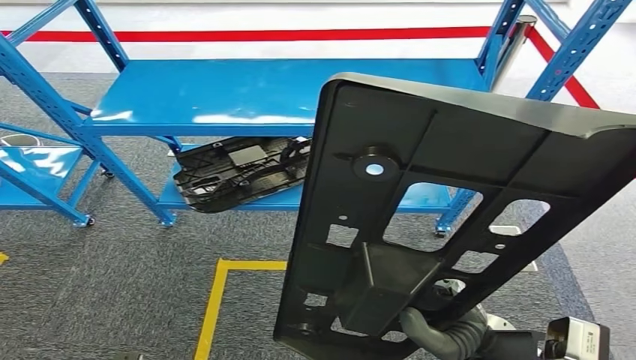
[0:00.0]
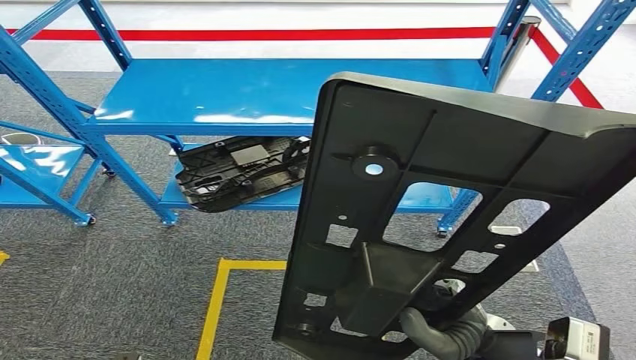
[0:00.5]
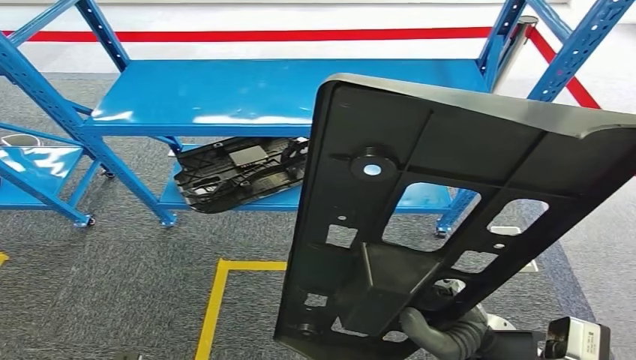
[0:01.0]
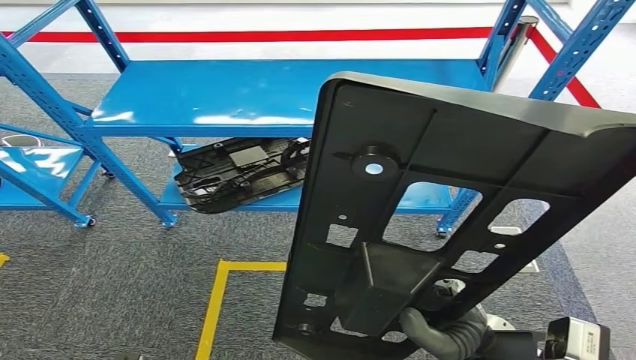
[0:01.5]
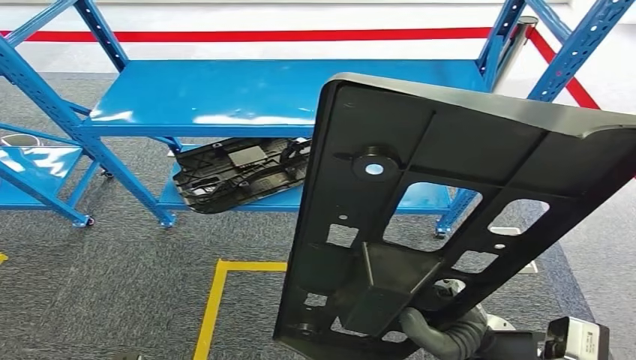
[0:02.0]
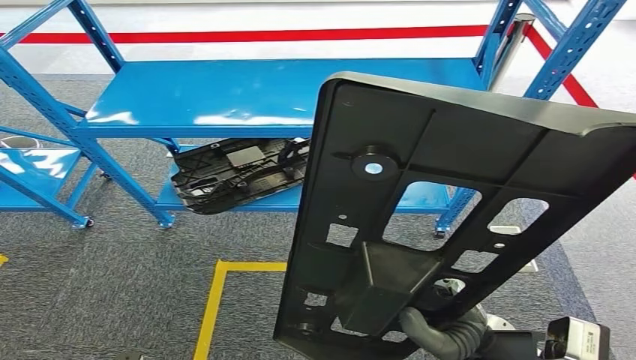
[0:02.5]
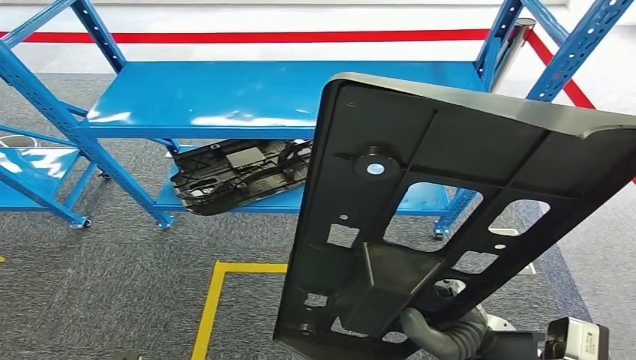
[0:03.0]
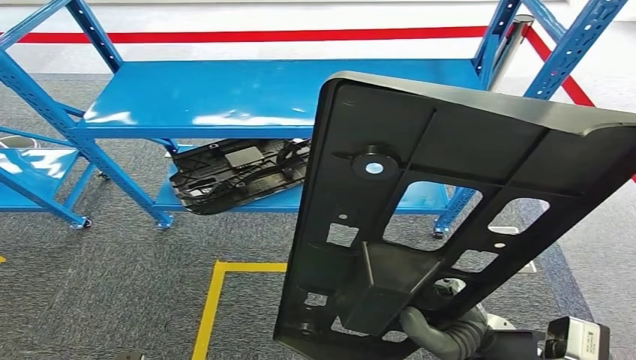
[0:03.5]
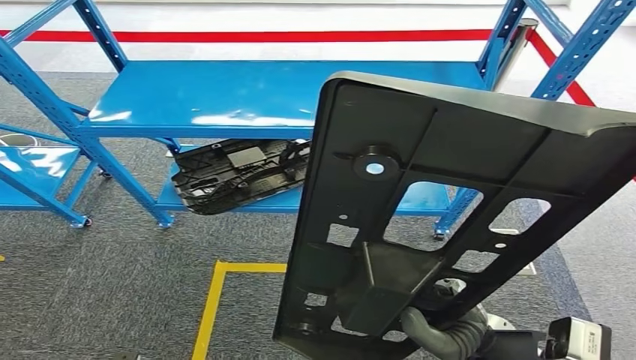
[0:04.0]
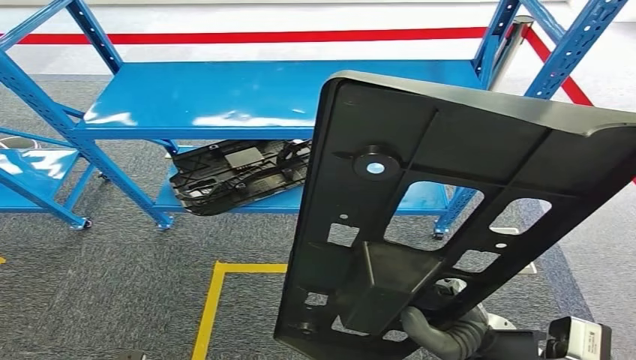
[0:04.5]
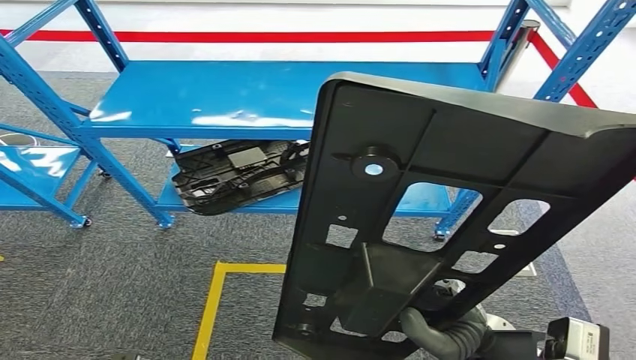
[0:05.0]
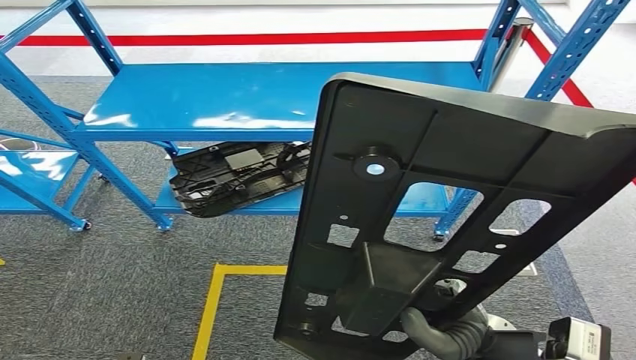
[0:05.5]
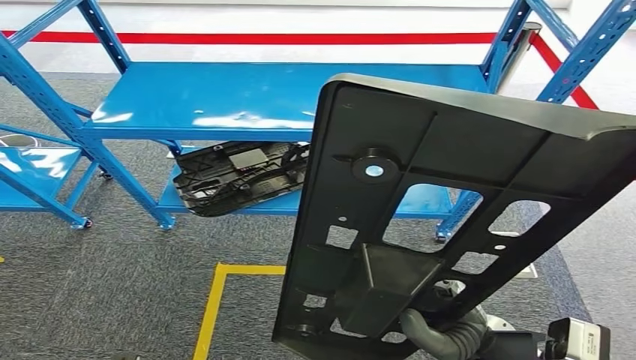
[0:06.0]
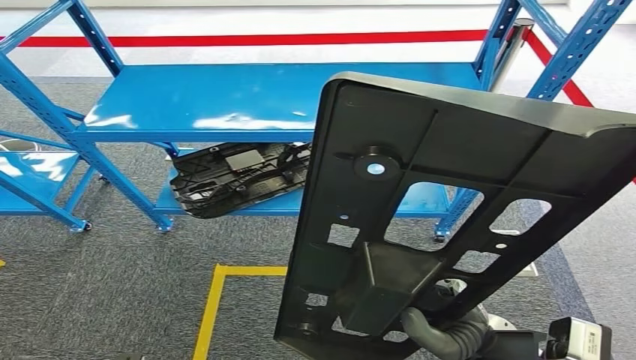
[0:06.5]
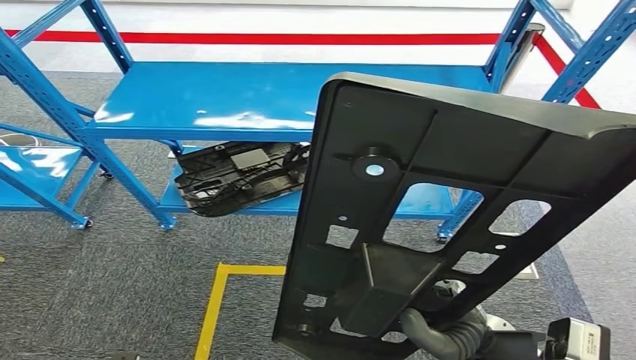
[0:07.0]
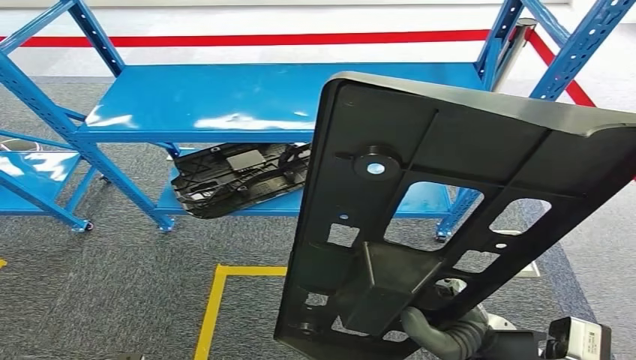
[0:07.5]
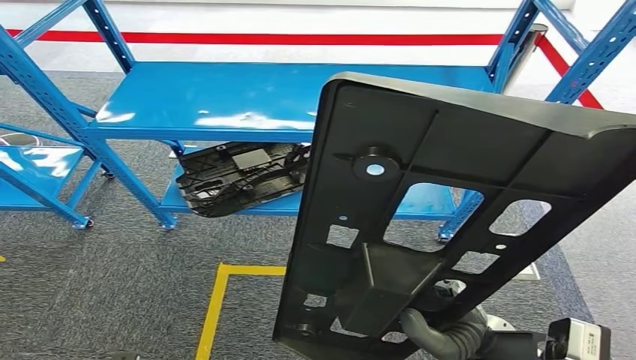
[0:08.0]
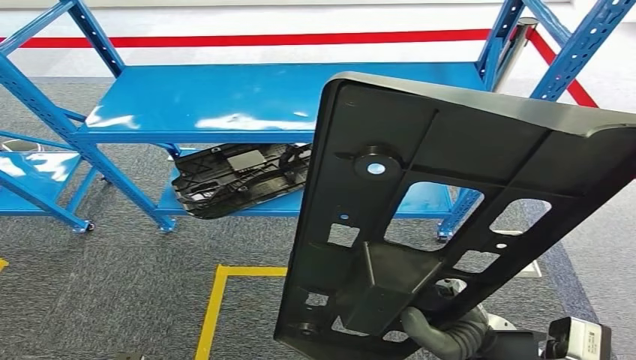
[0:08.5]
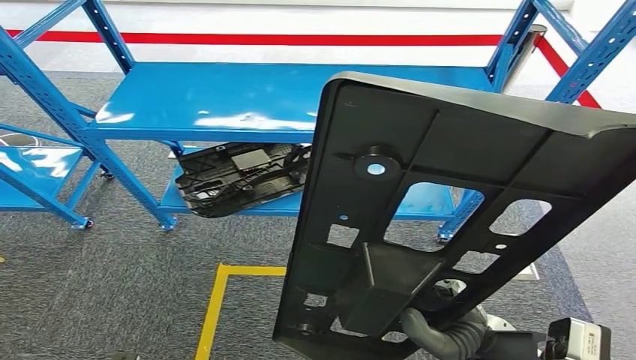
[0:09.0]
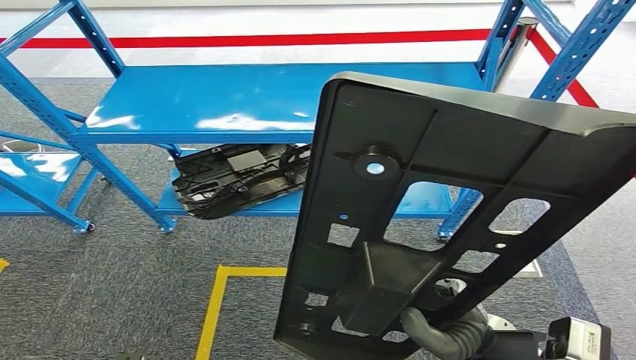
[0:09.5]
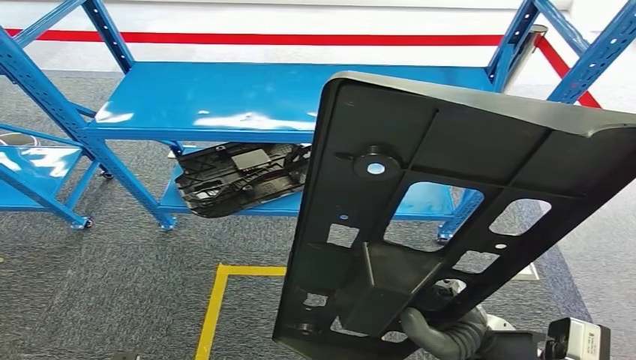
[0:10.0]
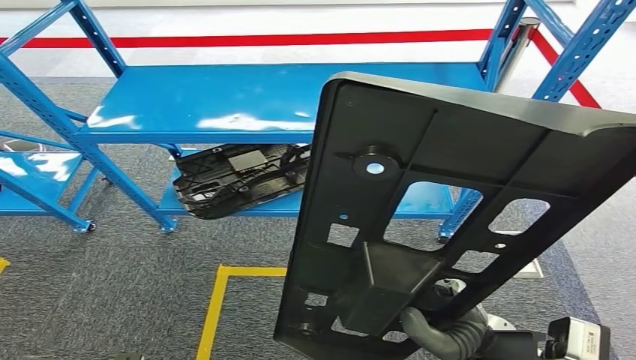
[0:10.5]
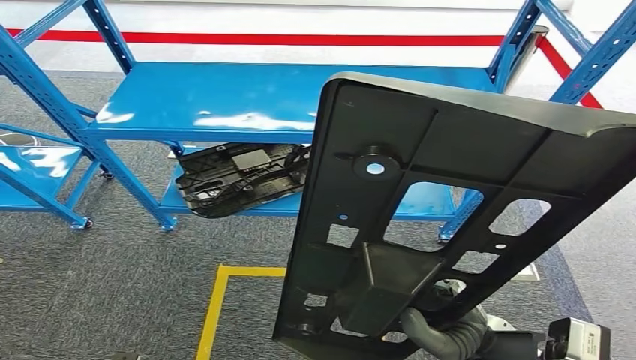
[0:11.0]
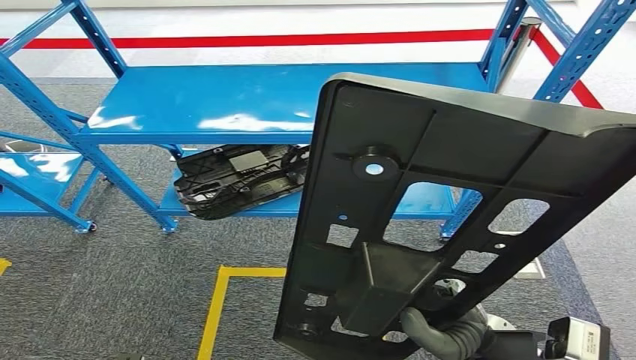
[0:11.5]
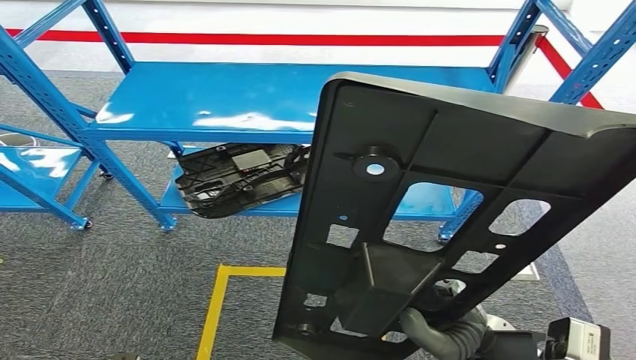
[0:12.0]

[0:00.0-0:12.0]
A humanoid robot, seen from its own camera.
0:00.0 to 0:12.0: Both hands stay about where they are.

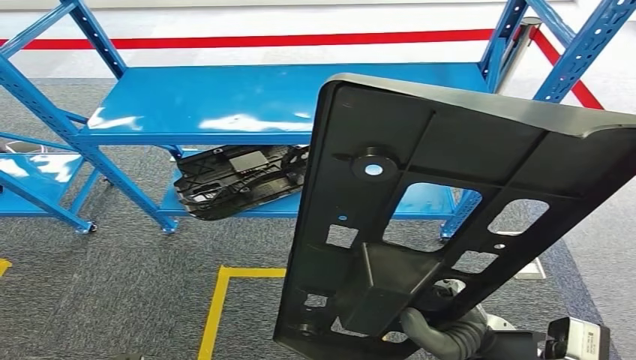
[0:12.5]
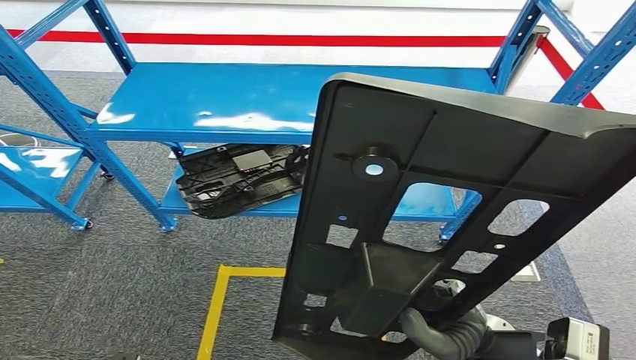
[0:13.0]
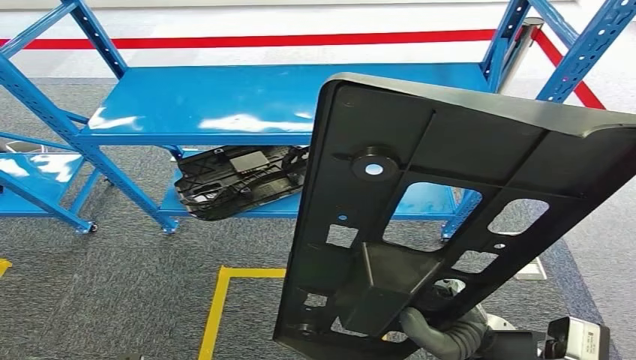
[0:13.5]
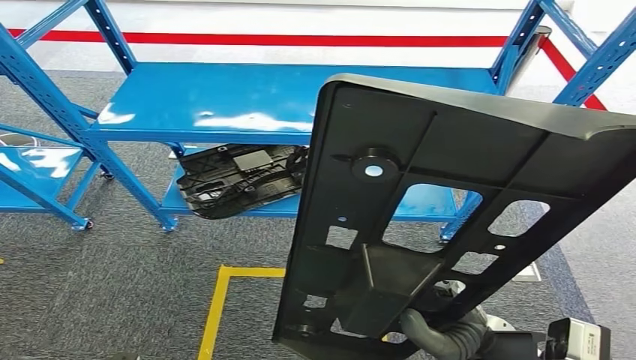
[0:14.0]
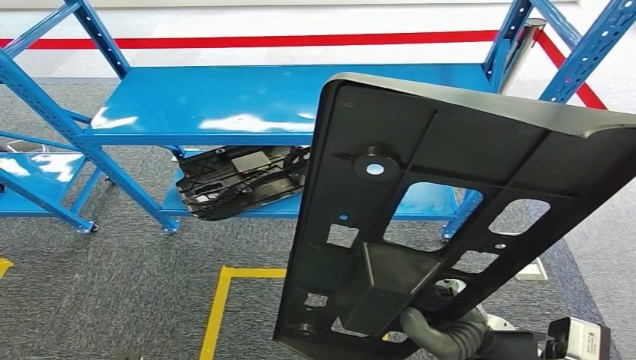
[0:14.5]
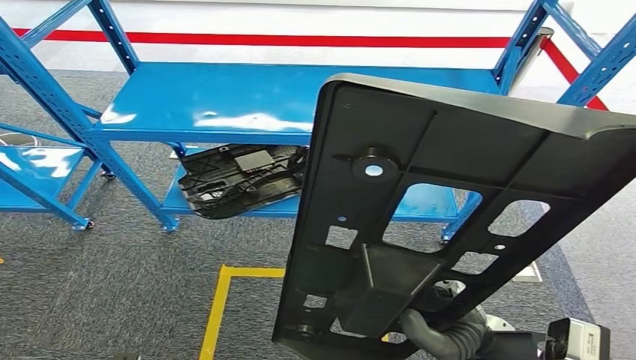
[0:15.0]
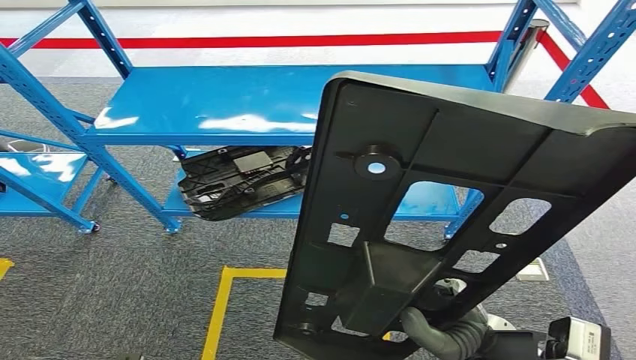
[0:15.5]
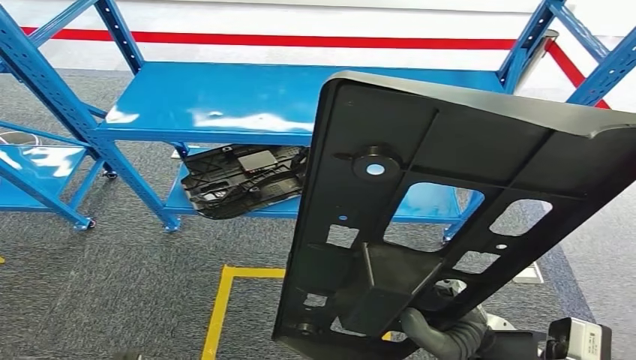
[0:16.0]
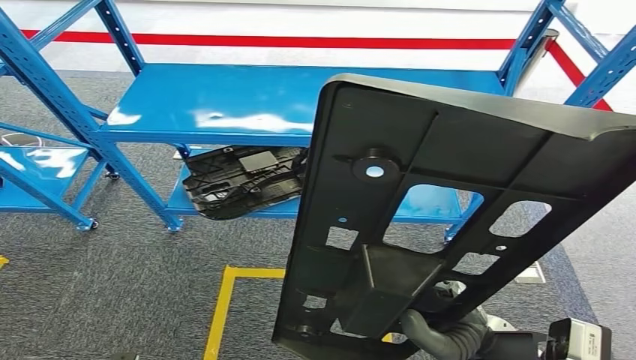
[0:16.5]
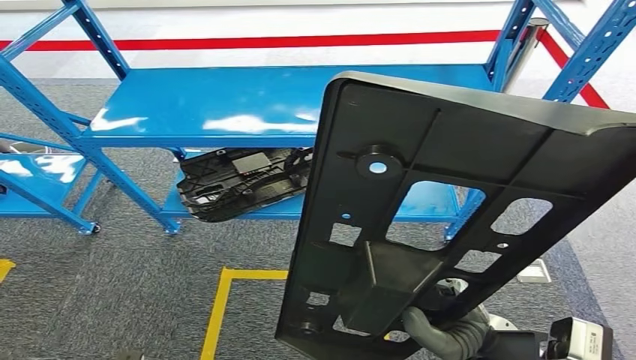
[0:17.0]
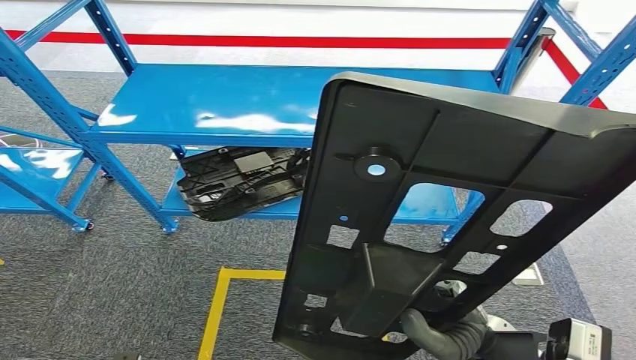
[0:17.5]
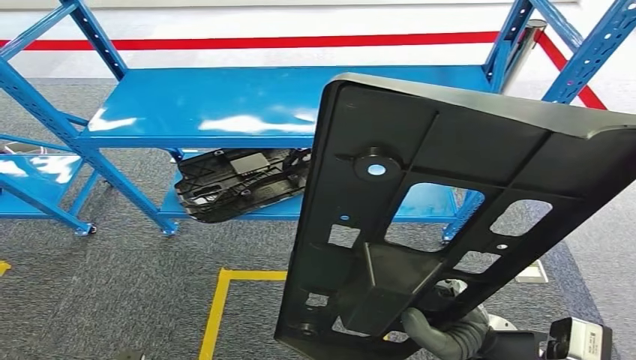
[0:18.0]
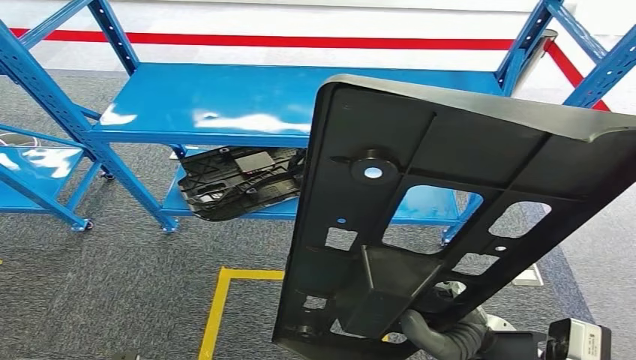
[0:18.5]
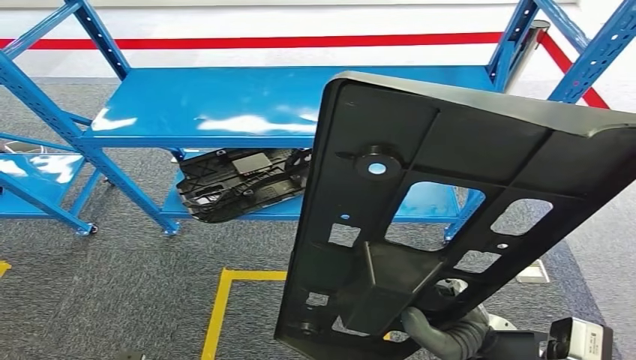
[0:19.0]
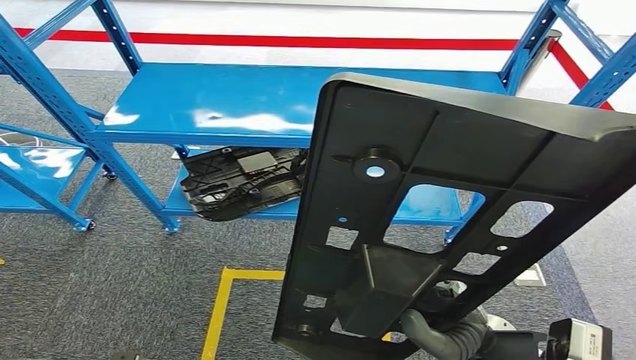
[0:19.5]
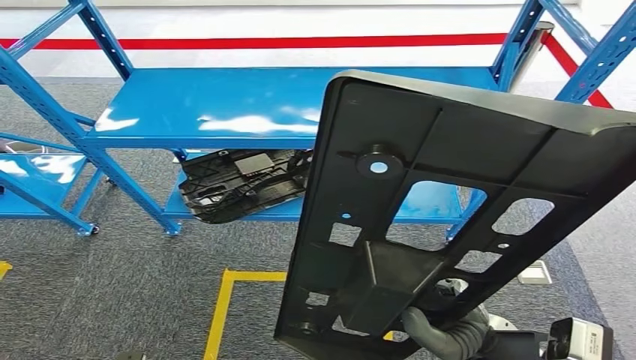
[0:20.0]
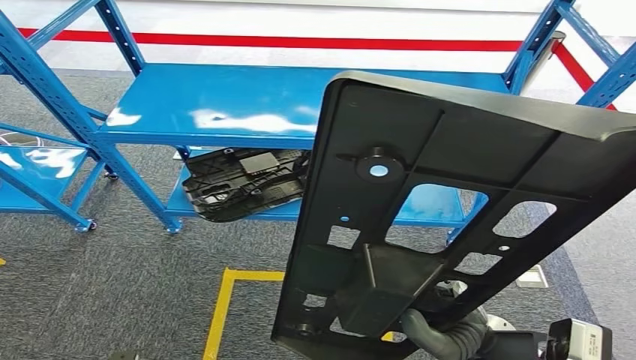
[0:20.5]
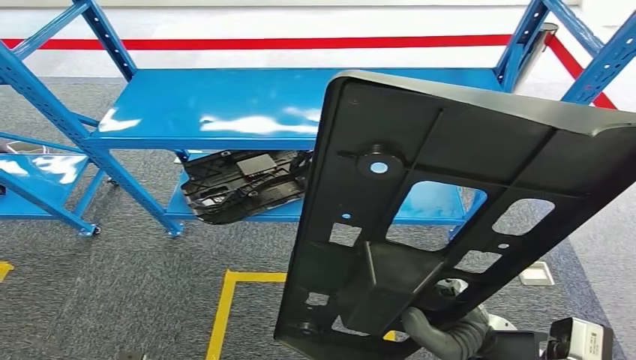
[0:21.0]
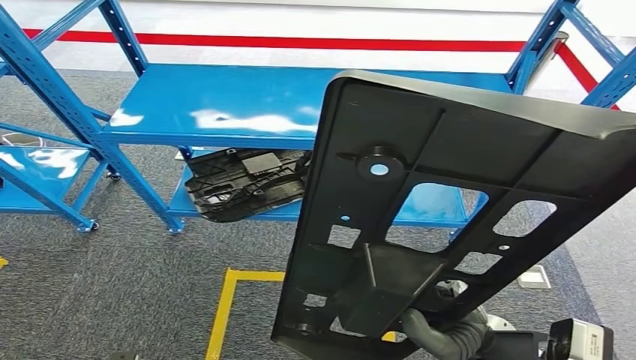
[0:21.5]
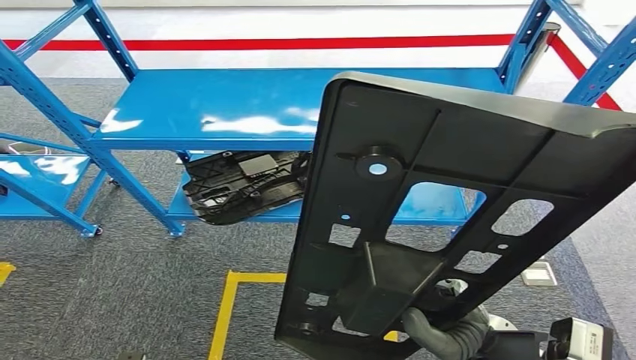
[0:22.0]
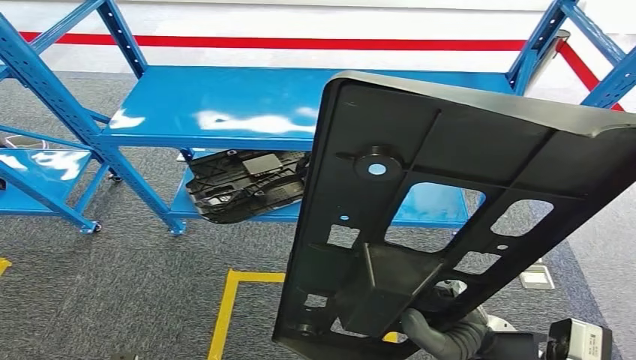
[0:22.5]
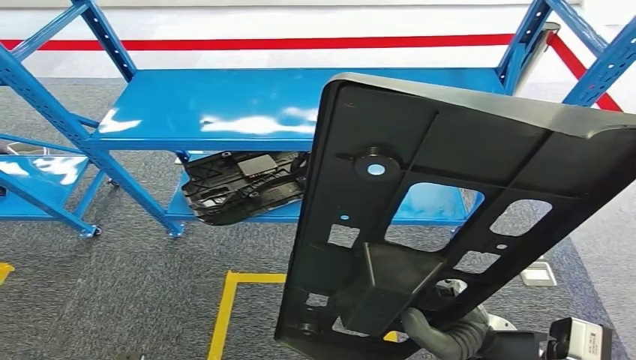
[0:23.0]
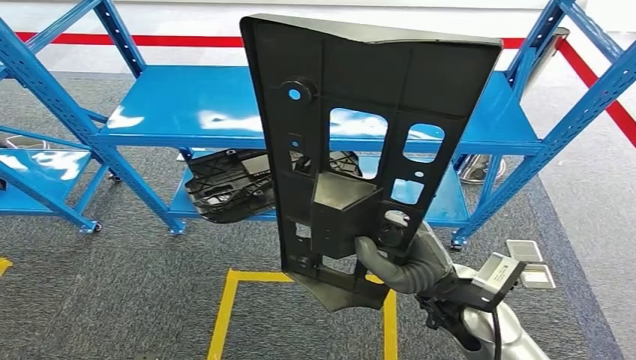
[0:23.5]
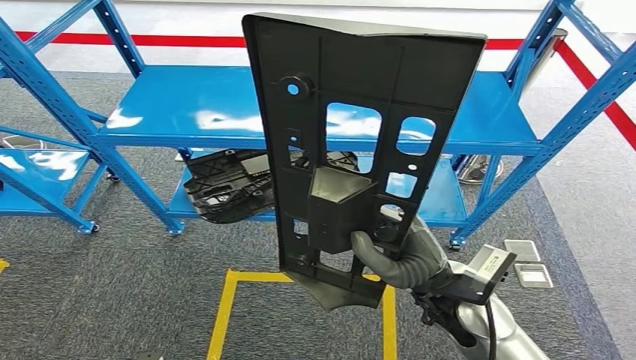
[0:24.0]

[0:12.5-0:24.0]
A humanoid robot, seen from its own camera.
0:12.5 to 0:14.5: Both hands stay put.
0:16.5 to 0:18.5: Both hands stay about where they are.
0:20.0 to 0:22.0: The two hands keep their place.
